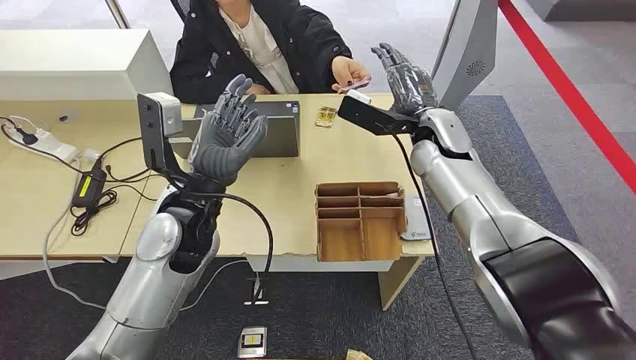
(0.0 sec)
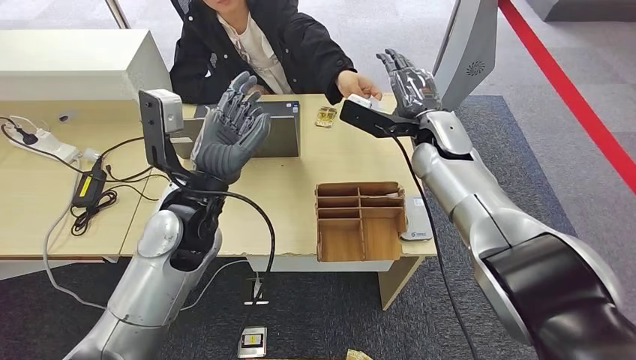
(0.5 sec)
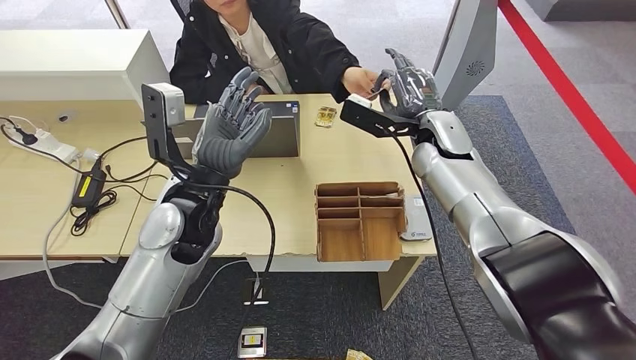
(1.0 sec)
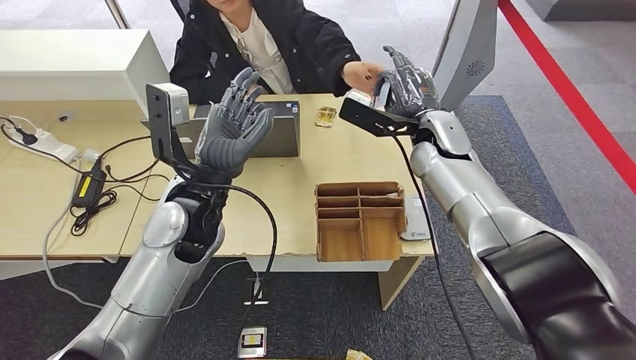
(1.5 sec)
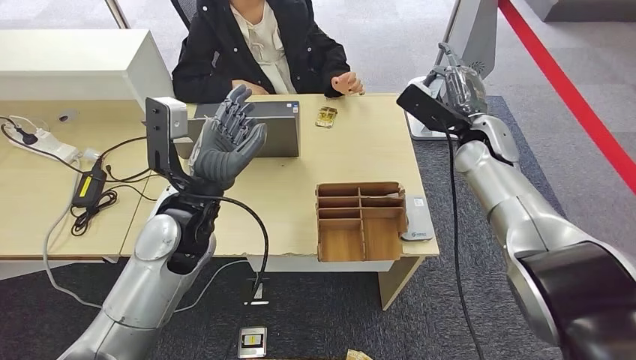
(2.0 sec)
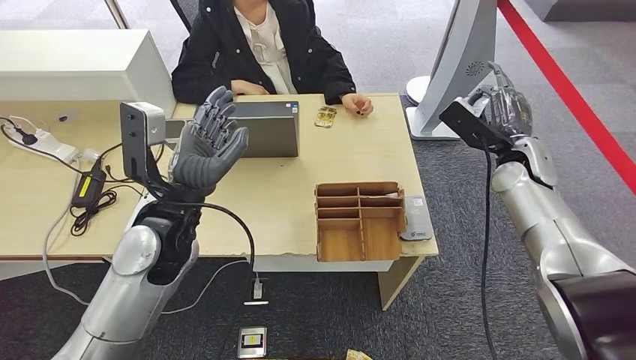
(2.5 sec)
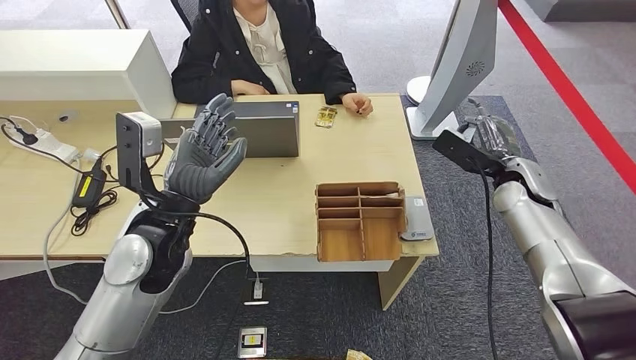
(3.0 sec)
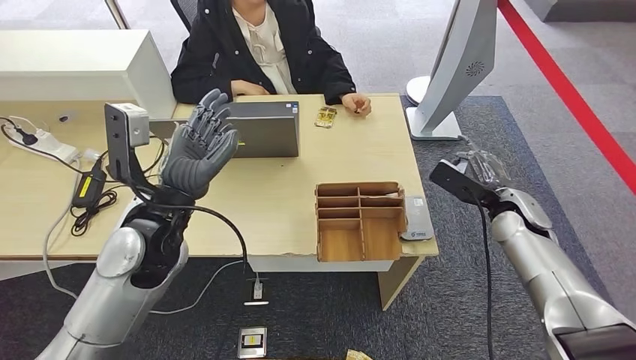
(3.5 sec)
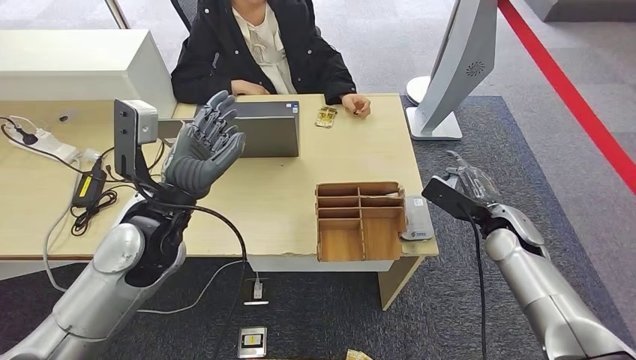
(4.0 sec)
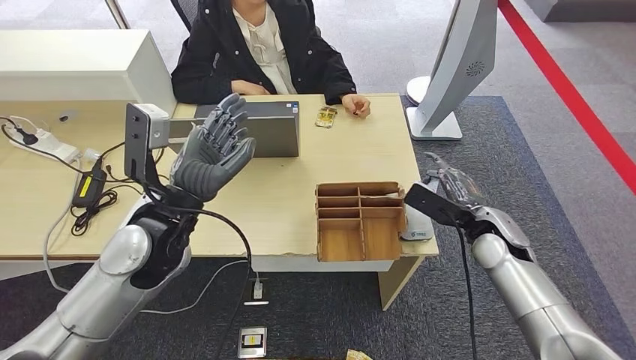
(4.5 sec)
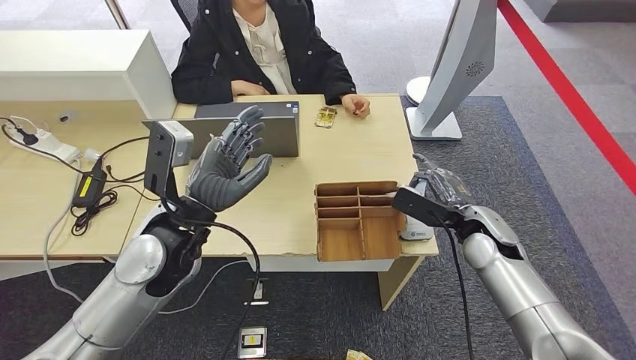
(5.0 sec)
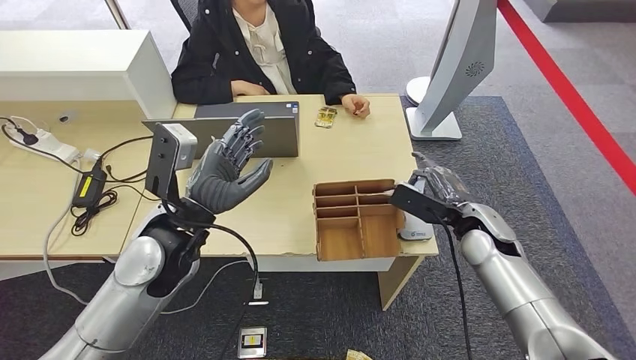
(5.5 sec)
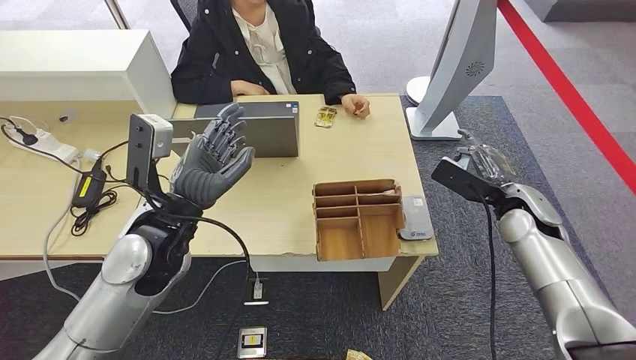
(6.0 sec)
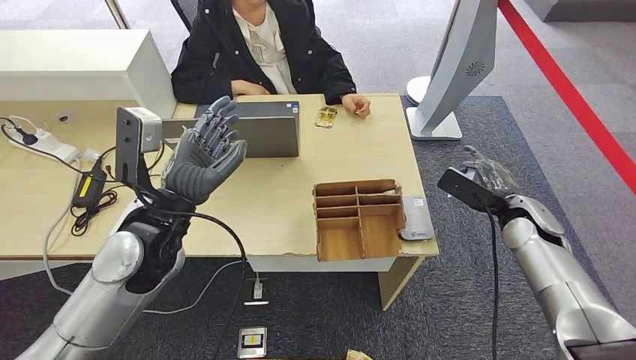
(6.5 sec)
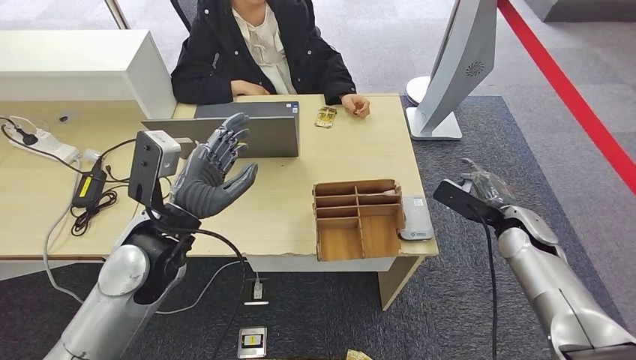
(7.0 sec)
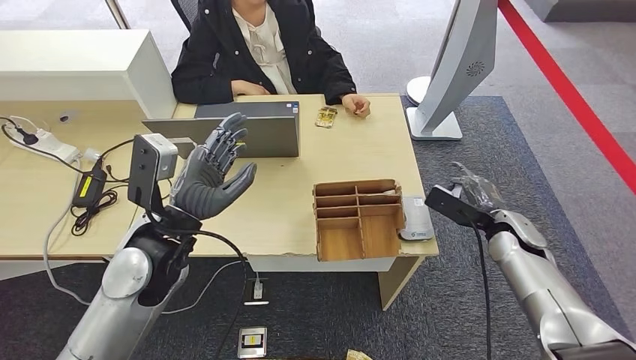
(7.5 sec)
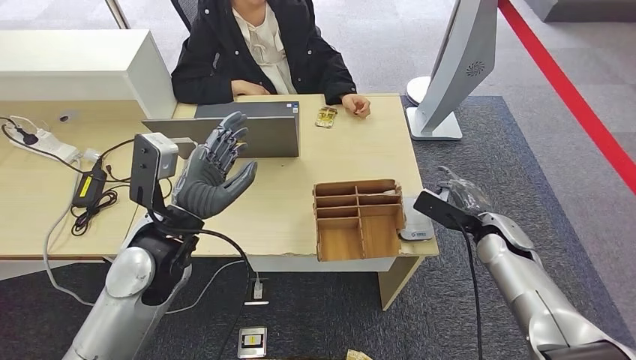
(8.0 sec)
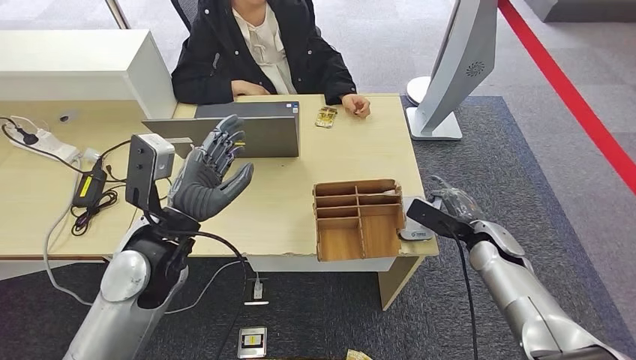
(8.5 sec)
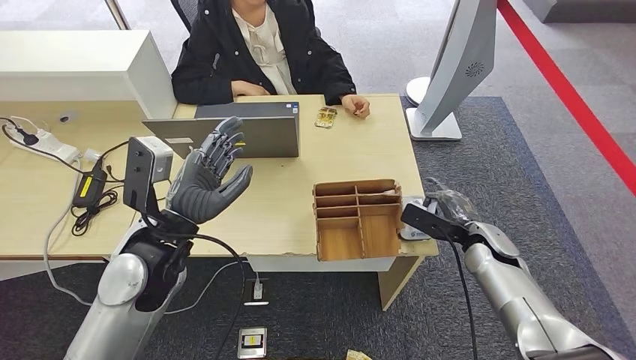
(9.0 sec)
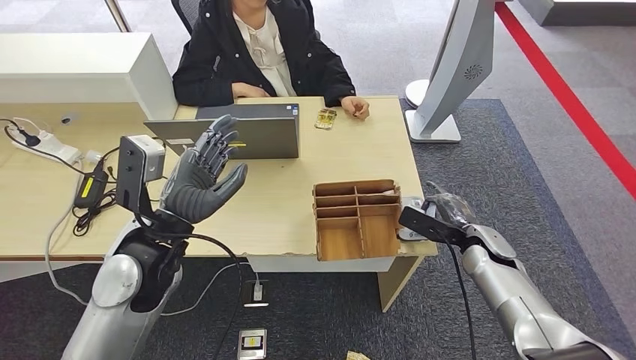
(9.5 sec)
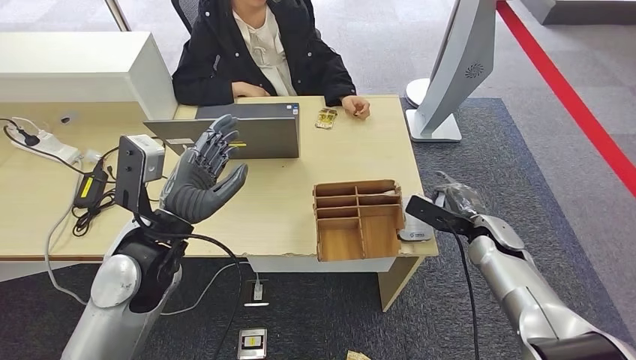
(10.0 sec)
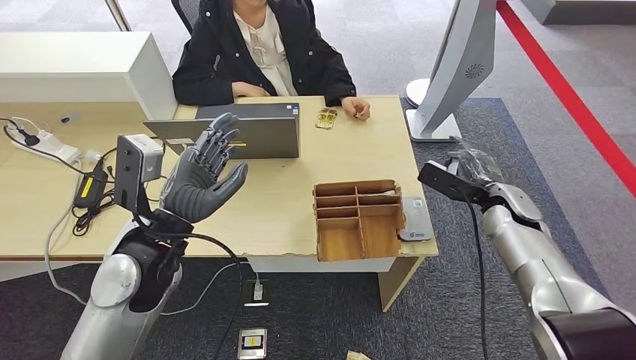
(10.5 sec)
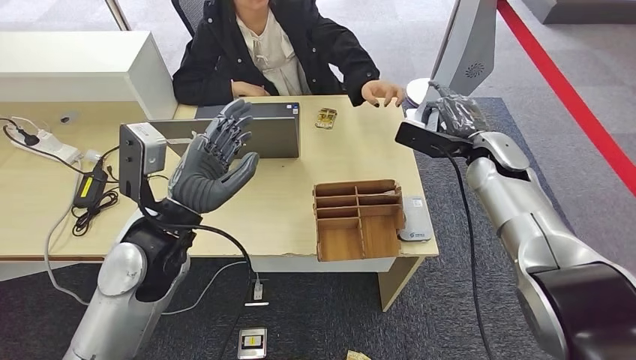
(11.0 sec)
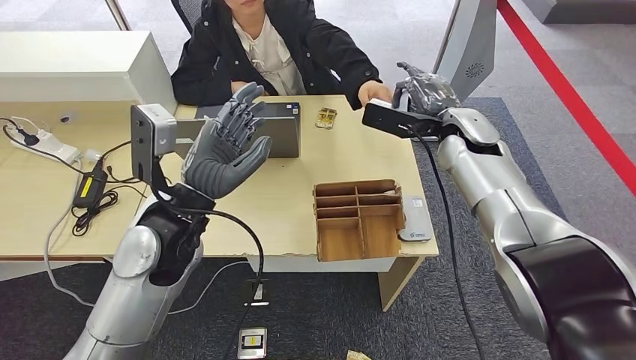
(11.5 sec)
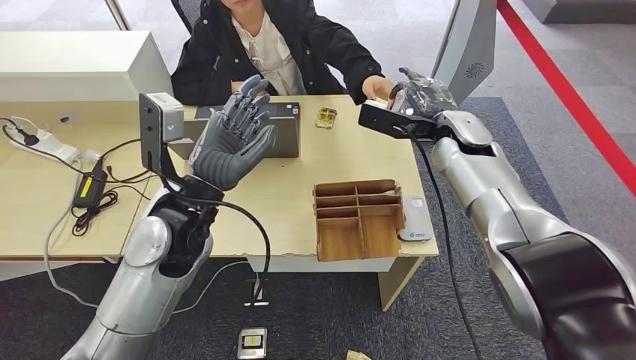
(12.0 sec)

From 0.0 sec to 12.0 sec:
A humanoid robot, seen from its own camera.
Step, from 0.0 sec to 2.5 sec: Take the ID card from the person's hand.
Step, from 3.0 sec to 10.0 sec: Place the ID card on the card reader.
From 4.0 sec to 6.0 sec: The hands move only a little.
From 6.0 sec to 8.0 sec: The right hand is displaced downward by some 5 cm.
From 8.0 sec to 10.0 sec: The hands move only a little.

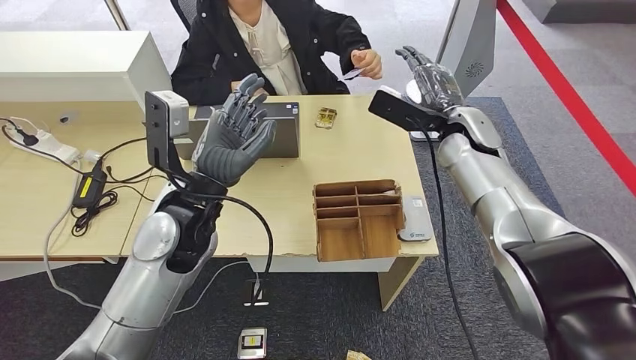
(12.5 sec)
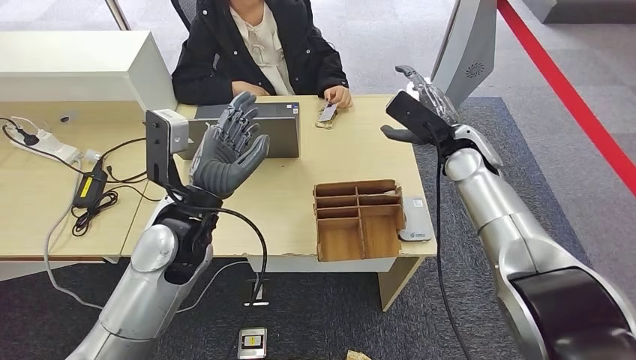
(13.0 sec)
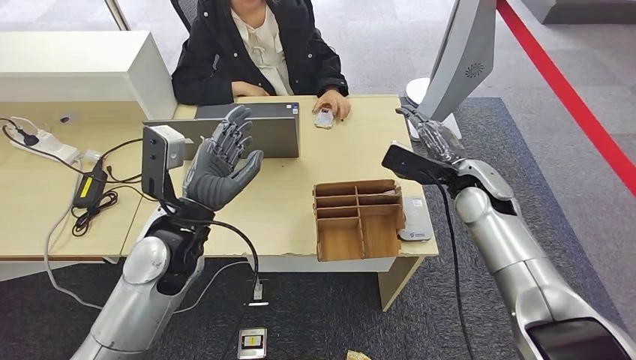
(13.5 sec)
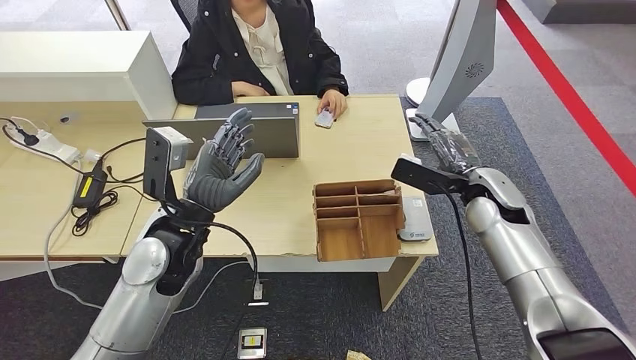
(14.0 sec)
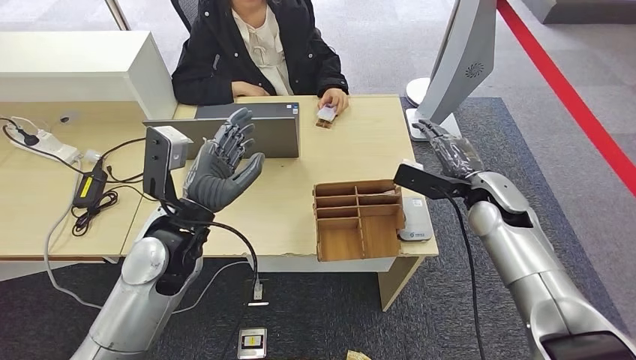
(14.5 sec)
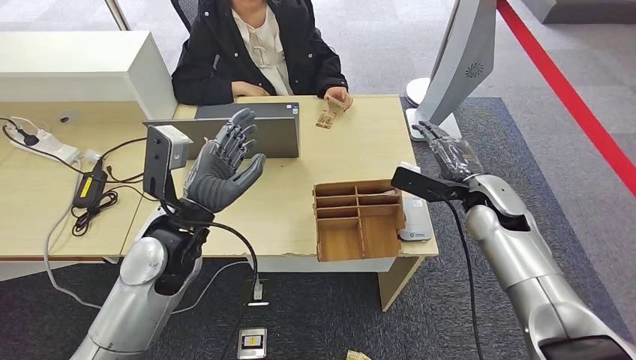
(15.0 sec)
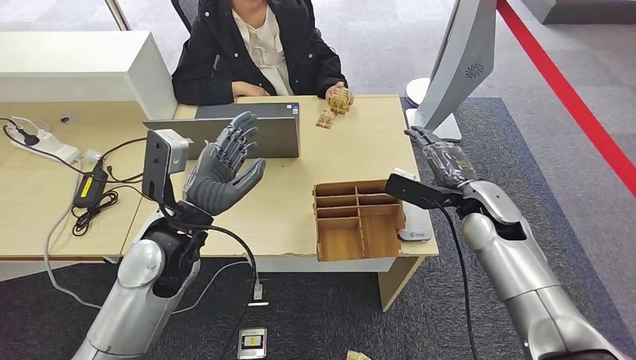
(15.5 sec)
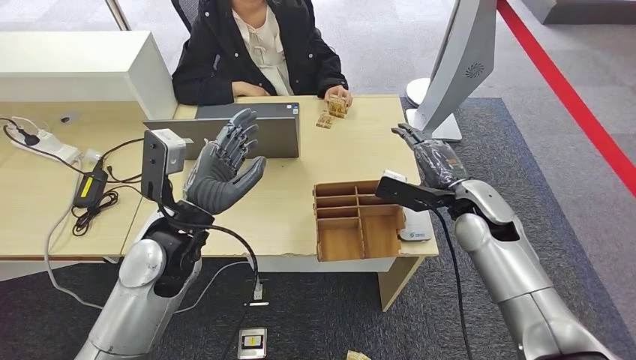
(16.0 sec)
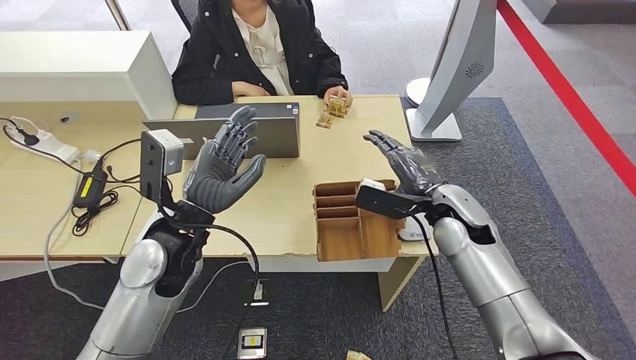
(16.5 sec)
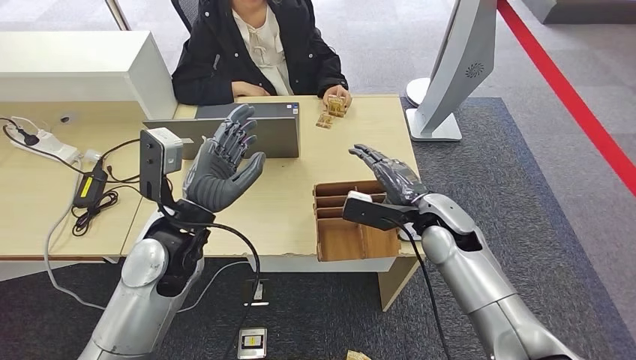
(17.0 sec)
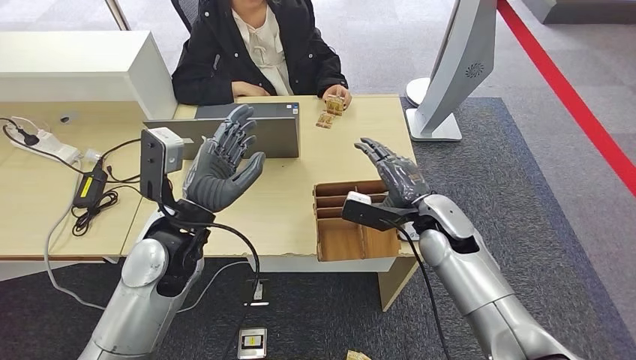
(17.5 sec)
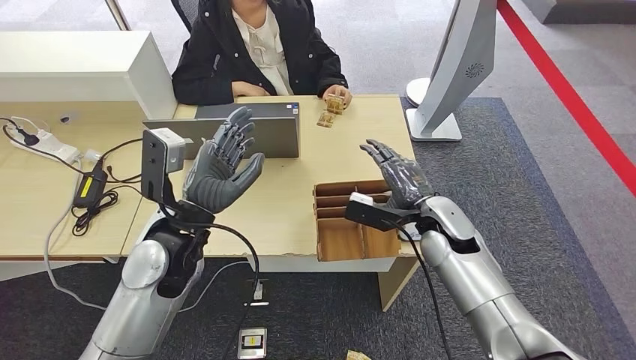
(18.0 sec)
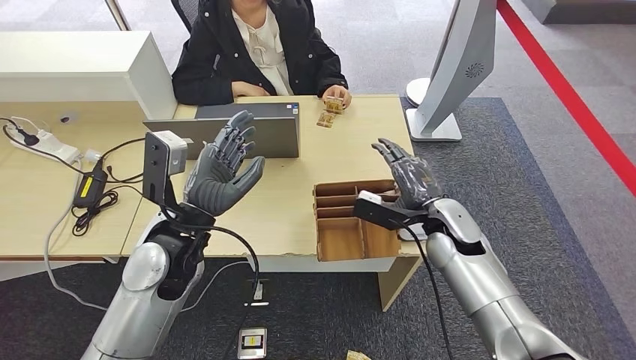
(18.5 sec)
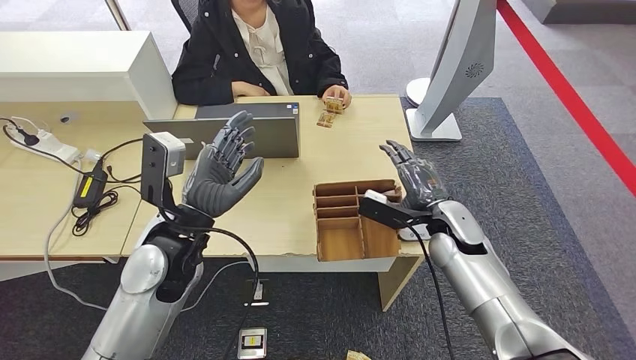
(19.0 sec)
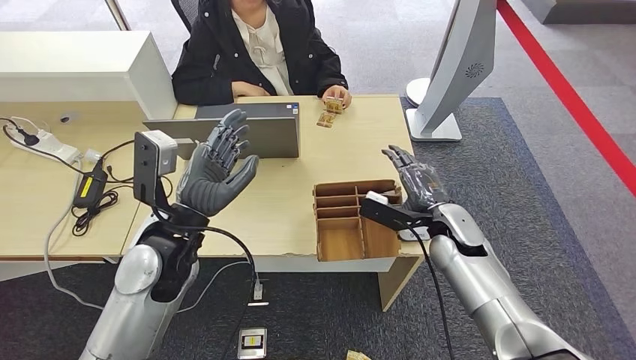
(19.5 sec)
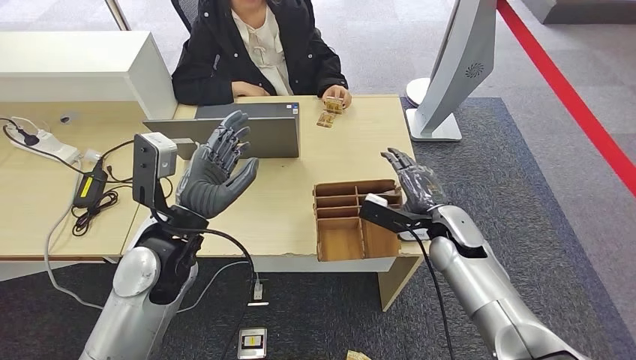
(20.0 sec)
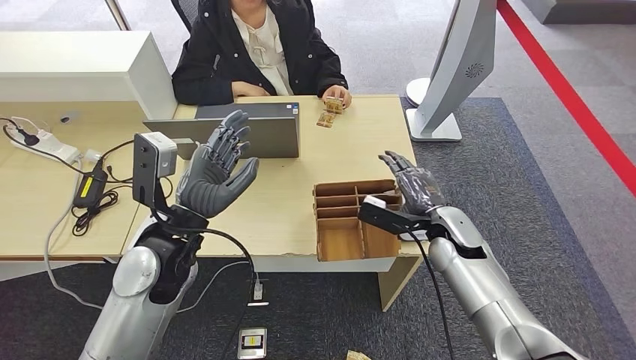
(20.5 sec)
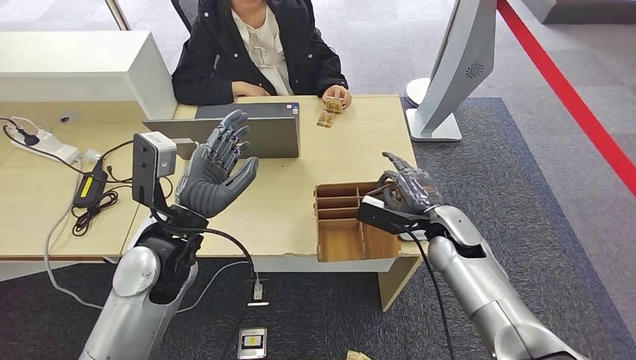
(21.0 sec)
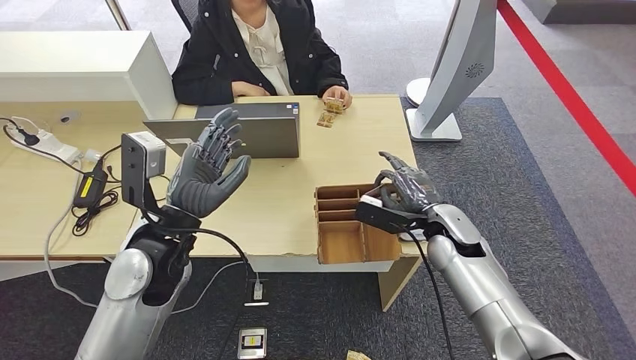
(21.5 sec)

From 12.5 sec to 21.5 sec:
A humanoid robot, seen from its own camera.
From 14.5 sec to 17.0 sec: The right hand goes roughly 10 cm to the left.
From 17.0 sec to 19.5 sec: The right hand changes place by approximately 5 cm.
From 19.5 sec to 21.5 sec: The hands move only a little.
